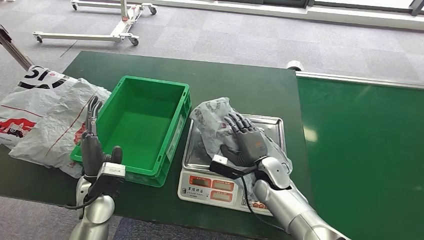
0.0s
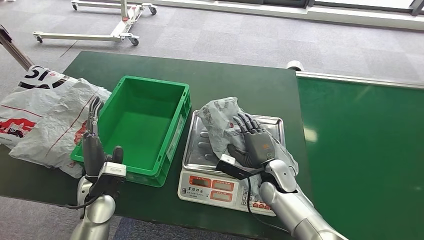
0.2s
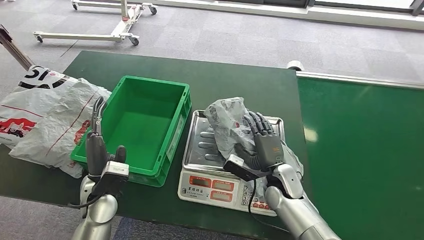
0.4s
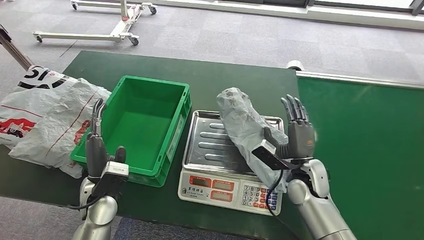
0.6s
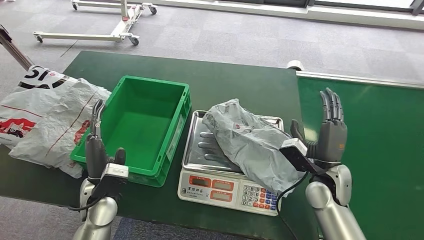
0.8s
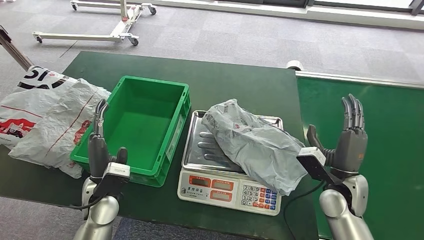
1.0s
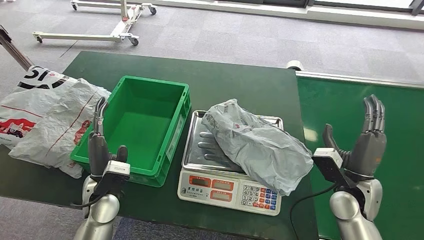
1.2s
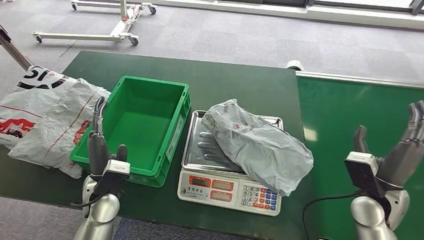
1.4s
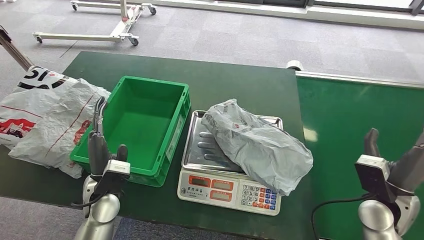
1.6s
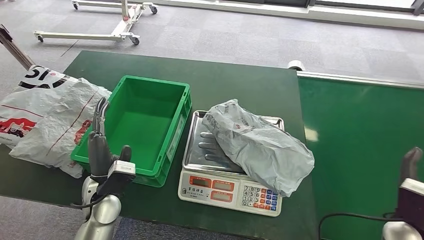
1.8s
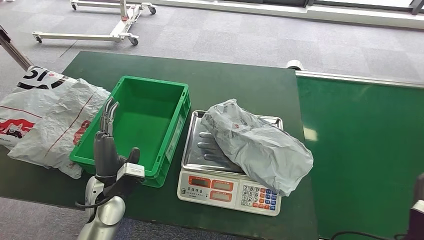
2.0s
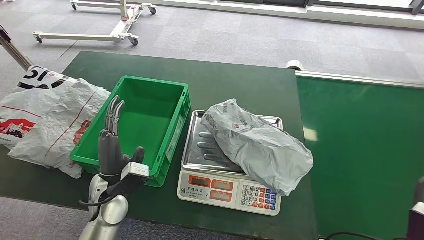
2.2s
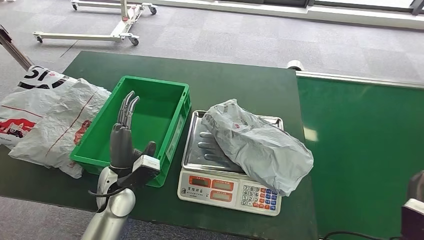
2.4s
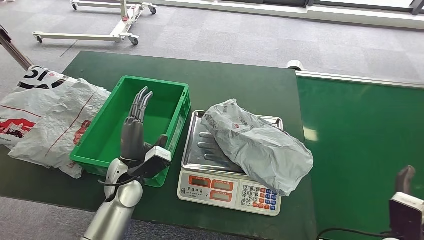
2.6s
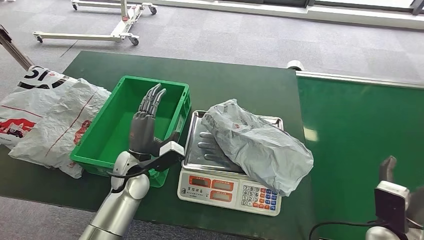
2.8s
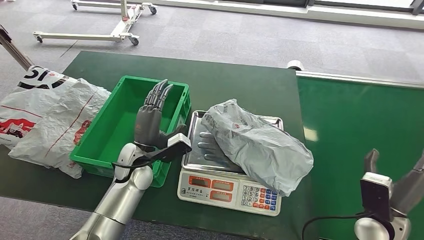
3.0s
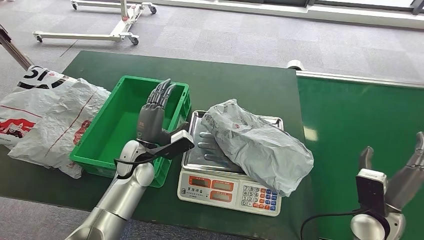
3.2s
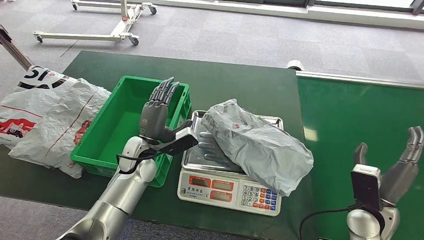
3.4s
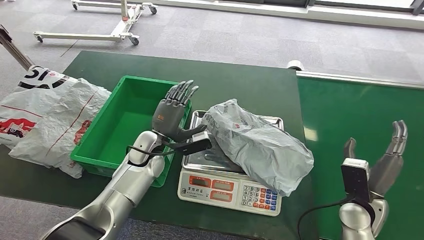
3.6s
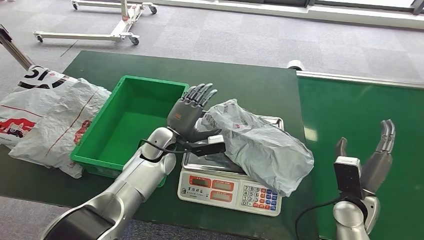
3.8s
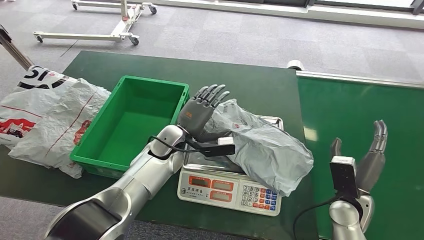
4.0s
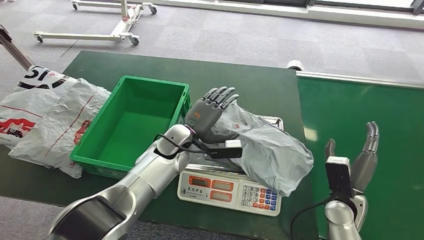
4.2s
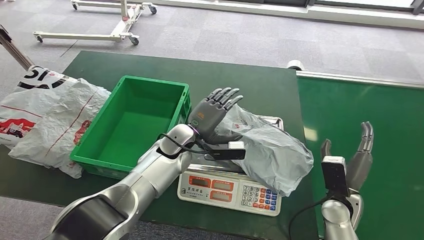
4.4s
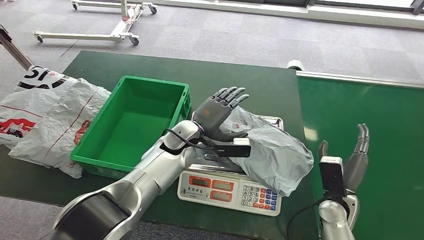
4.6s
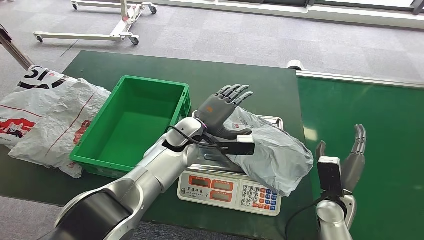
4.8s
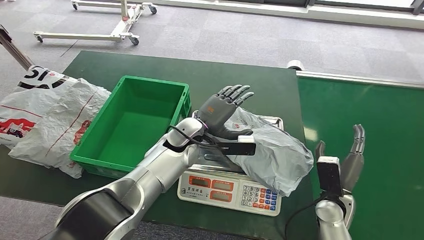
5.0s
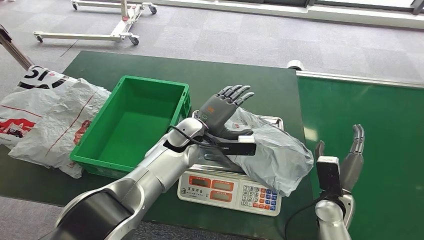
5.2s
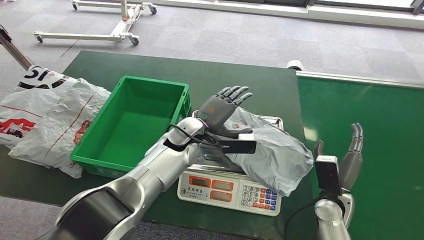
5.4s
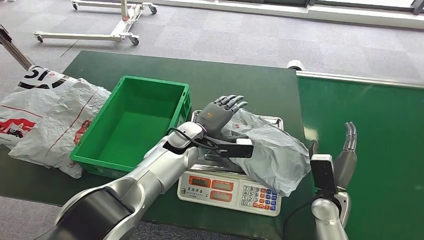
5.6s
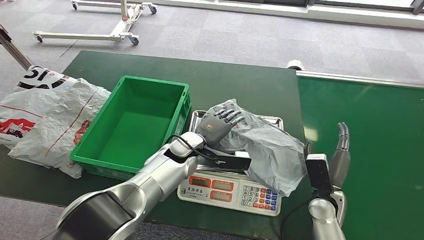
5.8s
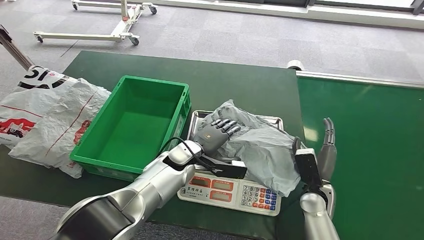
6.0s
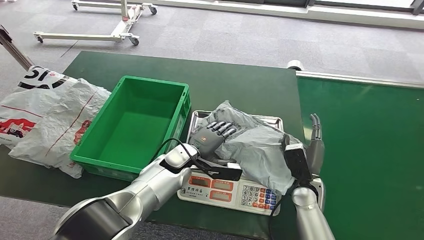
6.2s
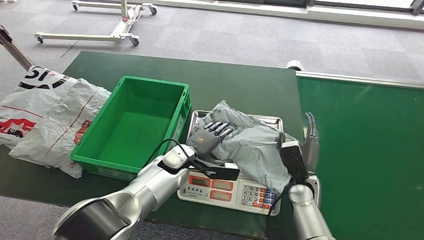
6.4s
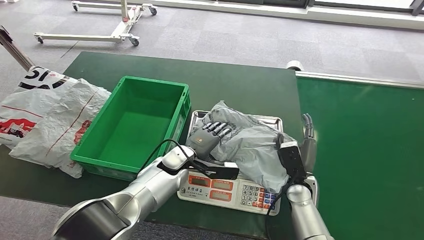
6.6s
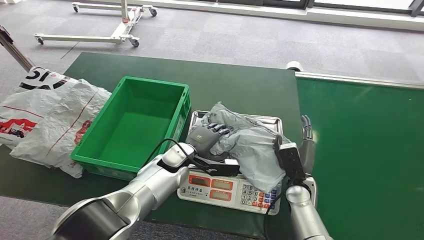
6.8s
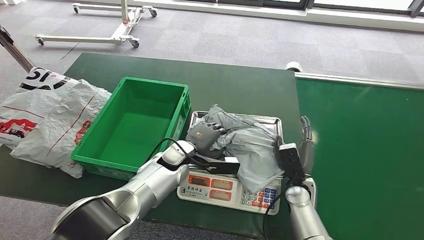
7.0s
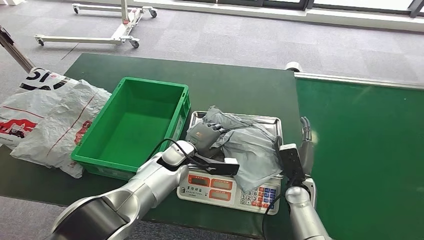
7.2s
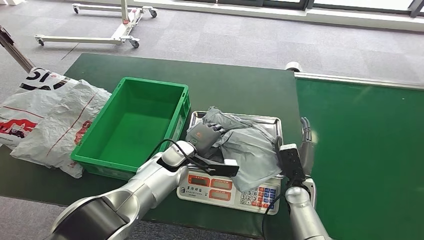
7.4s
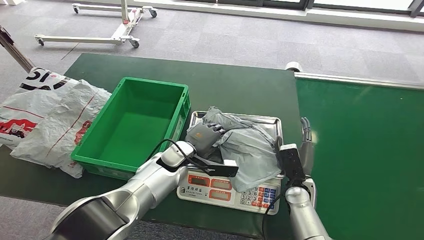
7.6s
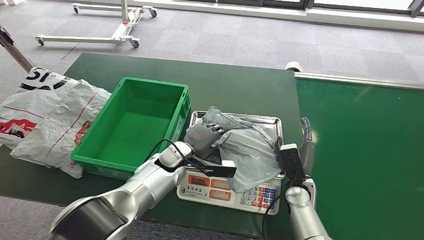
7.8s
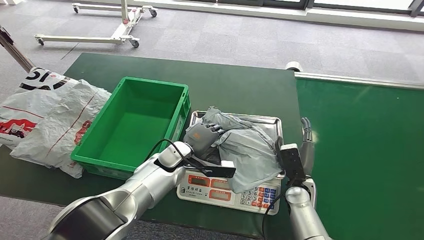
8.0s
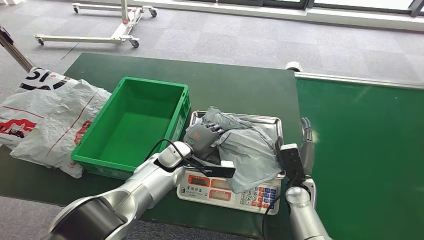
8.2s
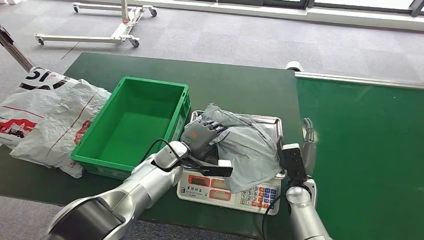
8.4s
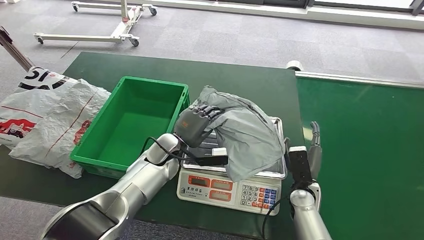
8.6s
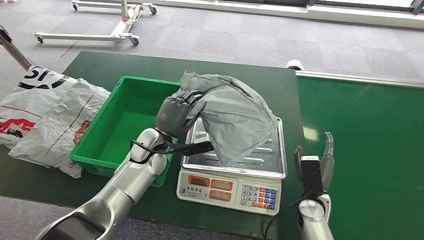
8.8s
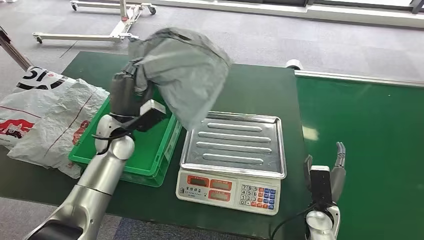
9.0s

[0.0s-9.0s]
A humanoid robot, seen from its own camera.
Step, 1.4s to 8.8s: Pick up the package from the inbound machine.
0.0s to 1.6s: The right hand shifts about 25 cm to the right.
1.6s to 3.0s: The left hand shifts approximately 10 cm forward and to the right.
3.0s to 4.4s: The right hand shifts roughly 5 cm to the left. The left hand is displaced to the right and forward by about 10 cm.
4.4s to 6.0s: The right hand shifts by approximately 5 cm.
